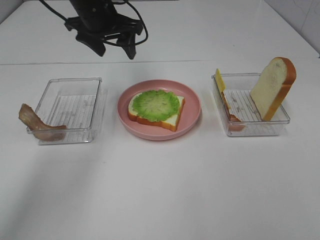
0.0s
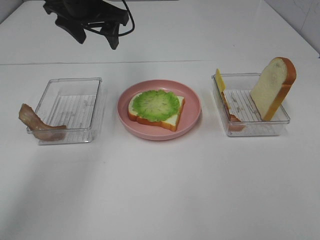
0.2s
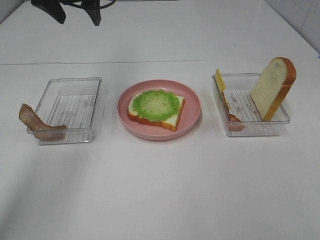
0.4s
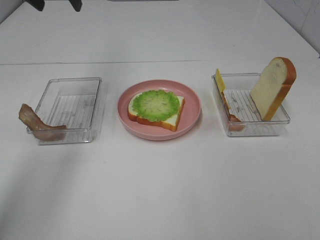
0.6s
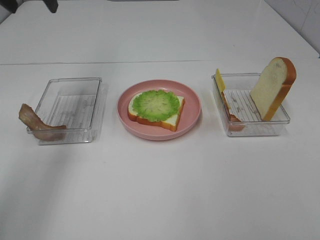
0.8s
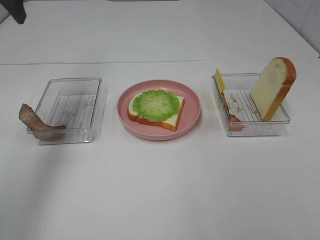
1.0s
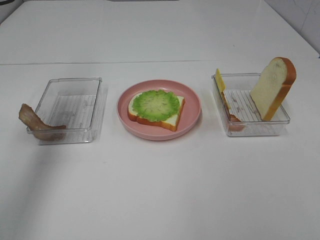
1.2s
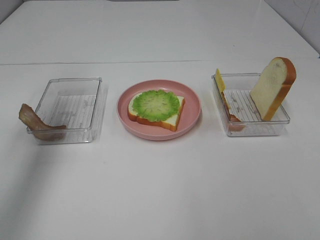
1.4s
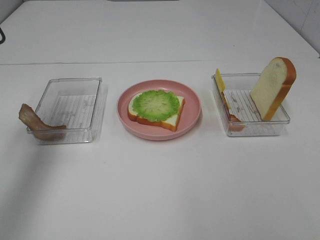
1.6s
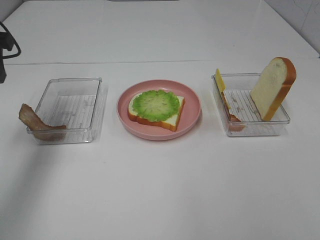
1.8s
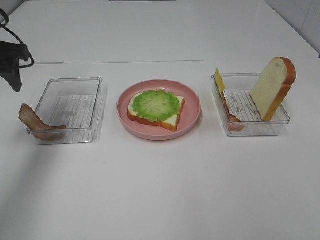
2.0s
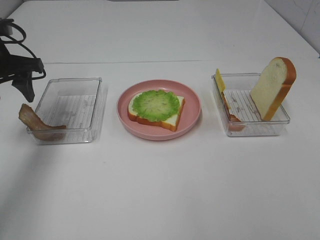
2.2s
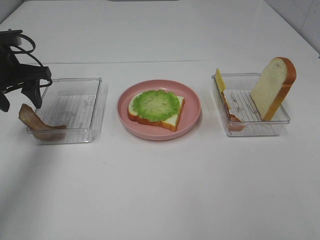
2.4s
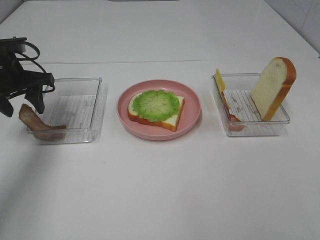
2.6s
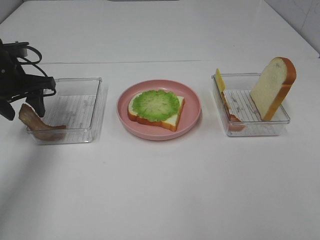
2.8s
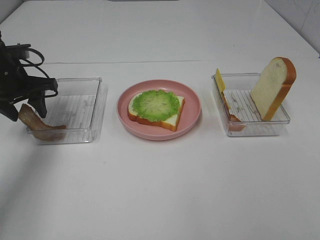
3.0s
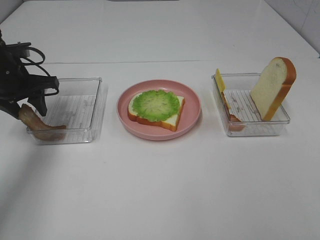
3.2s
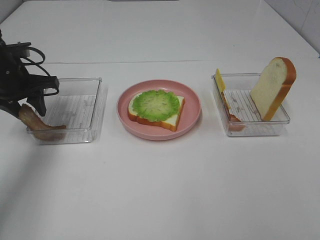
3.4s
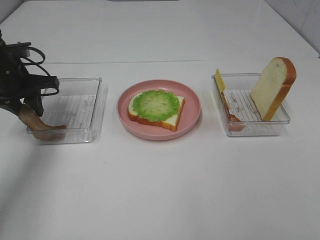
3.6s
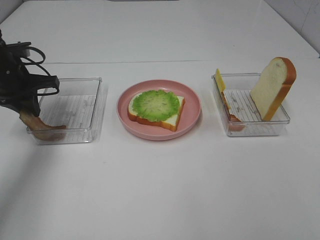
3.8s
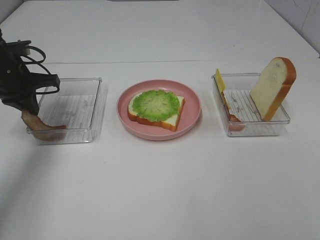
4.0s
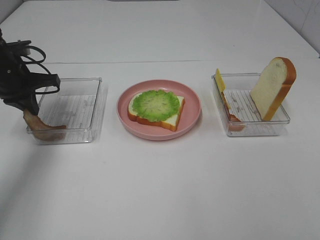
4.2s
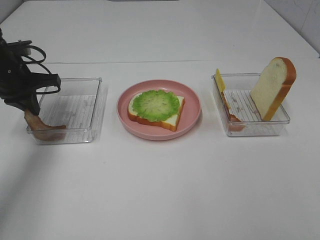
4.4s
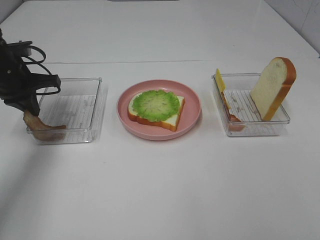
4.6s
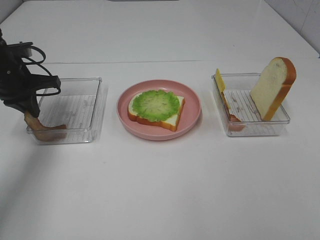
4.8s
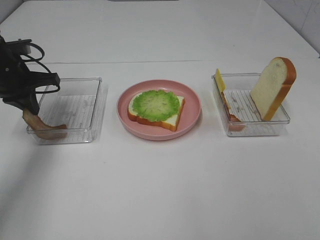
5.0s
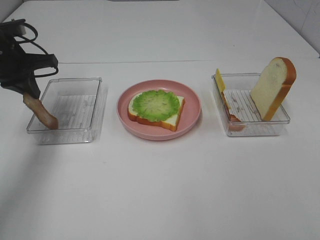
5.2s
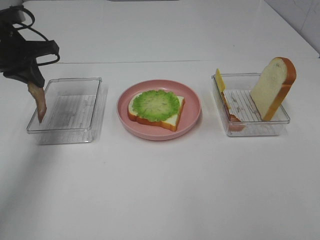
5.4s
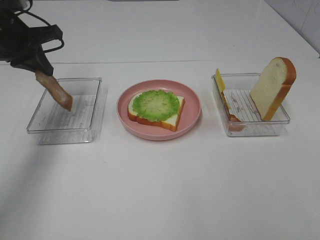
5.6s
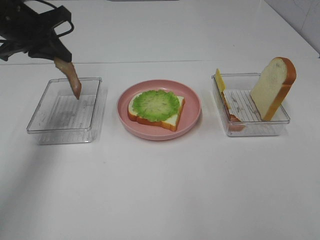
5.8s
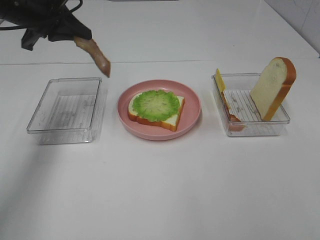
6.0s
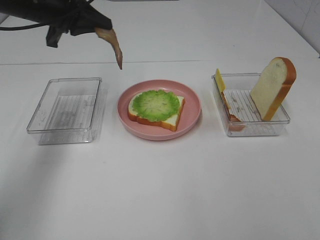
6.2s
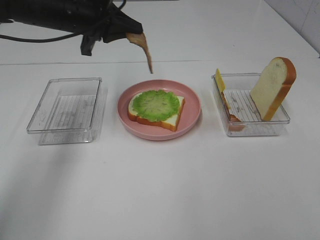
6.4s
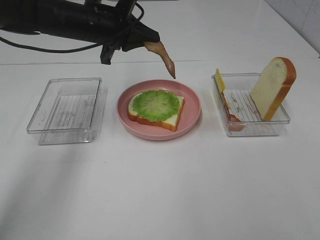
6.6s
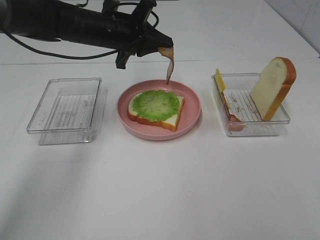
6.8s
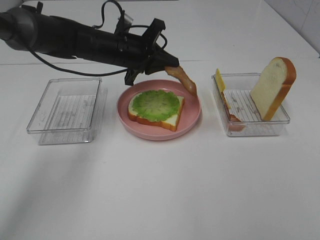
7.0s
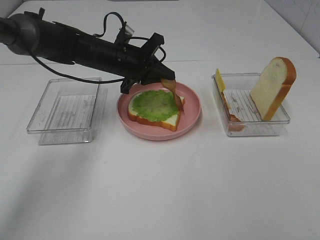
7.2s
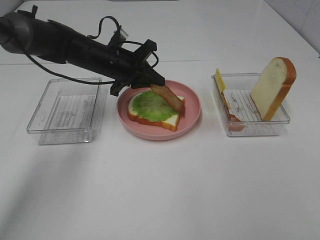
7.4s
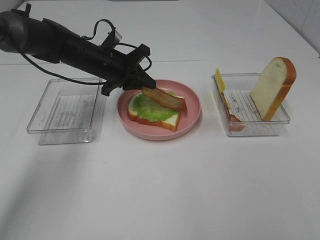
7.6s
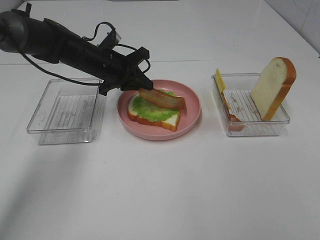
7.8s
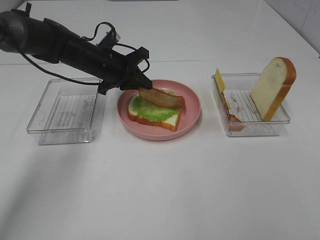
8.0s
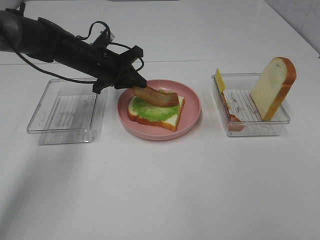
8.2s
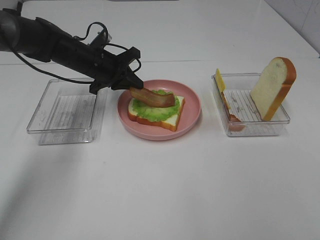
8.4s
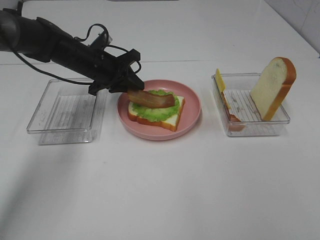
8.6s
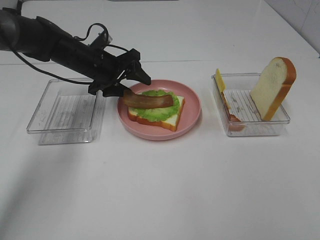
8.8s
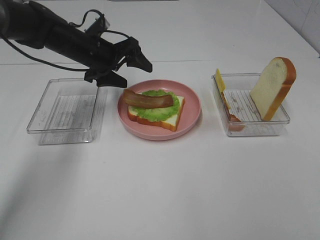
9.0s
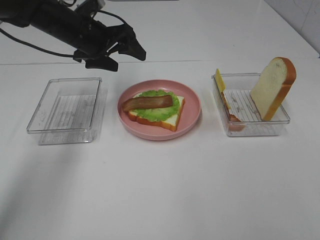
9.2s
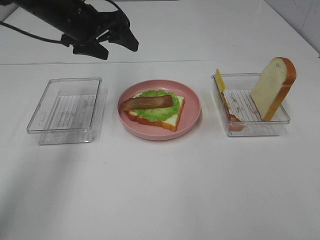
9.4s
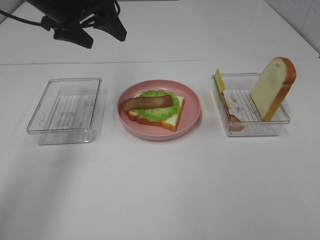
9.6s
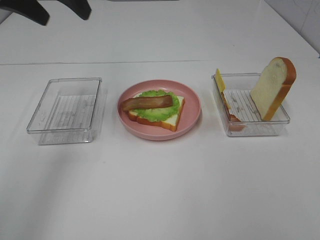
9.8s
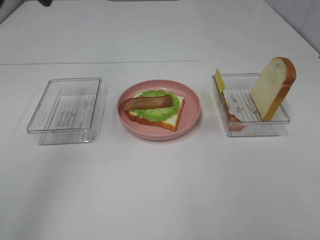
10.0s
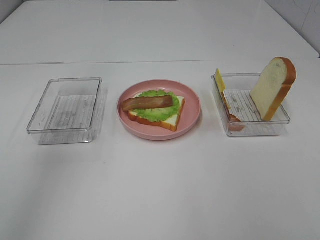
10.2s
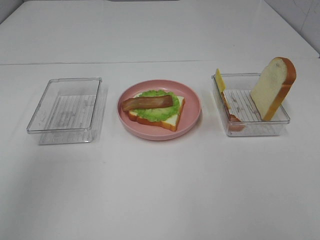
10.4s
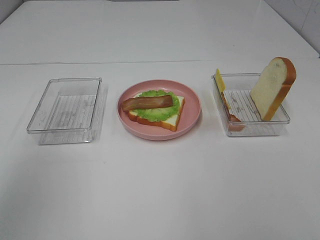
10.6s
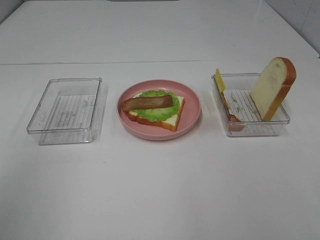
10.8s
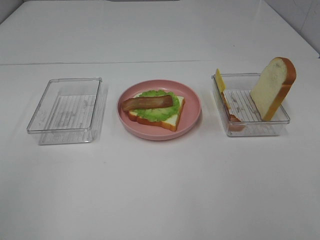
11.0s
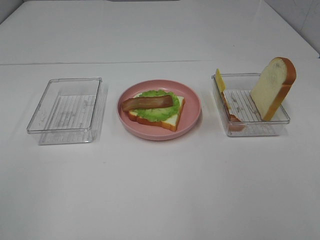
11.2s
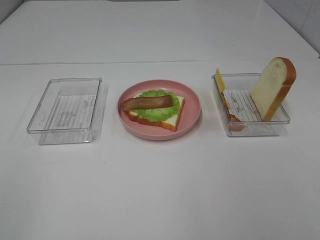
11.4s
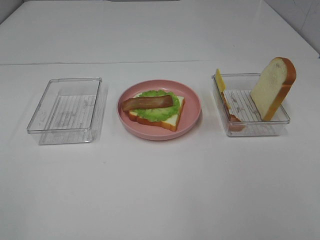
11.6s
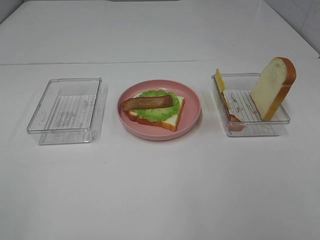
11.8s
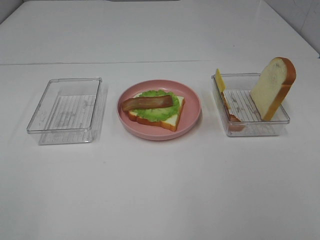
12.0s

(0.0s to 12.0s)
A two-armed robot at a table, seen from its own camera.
Task of the whole recording: Make sandwiches.
Step, 0.0s - 4.2s: Left hand:grab the bacon.
Step, 4.4s - 9.2s: Left hand:place bacon on lettuce slice.
0.0s - 1.6s: The left gripper shifts approximately 25 cm to the left and backward.
1.6s - 3.0s: The left gripper travels downward and forward by approximately 15 cm.
3.0s - 4.4s: The left gripper closes up.
4.4s - 6.0s: The left gripper shifts roughly 10 cm upward and to the right.
6.0s - 7.6s: The left gripper shifts approximately 15 cm downward and to the right.
7.6s - 9.0s: The left gripper opens.
9.0s - 10.4s: The left gripper is displaced upward, backward and to the left by roughly 40 cm.
10.4s - 12.0s: The left gripper is displaced backward and downward by roughly 25 cm.

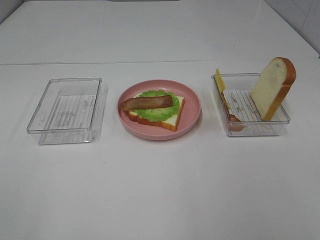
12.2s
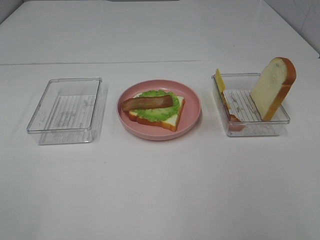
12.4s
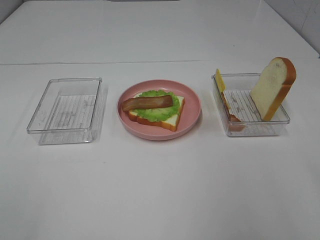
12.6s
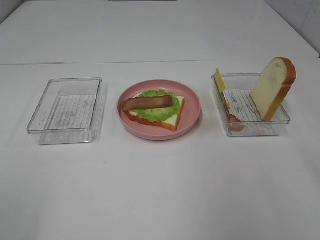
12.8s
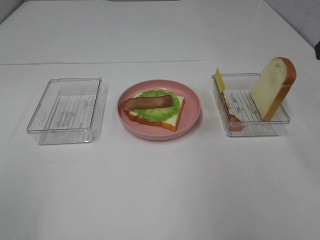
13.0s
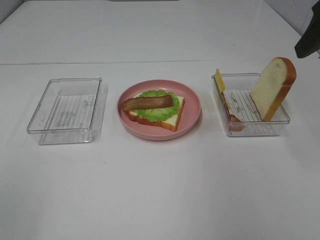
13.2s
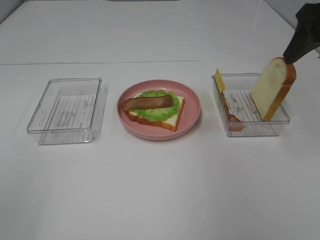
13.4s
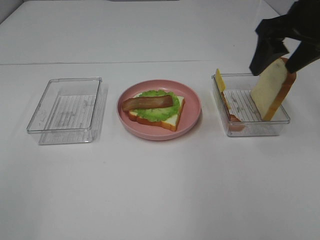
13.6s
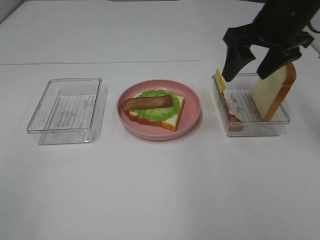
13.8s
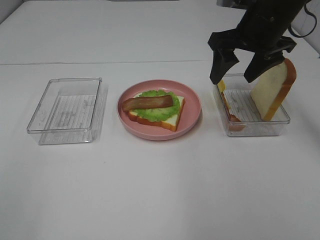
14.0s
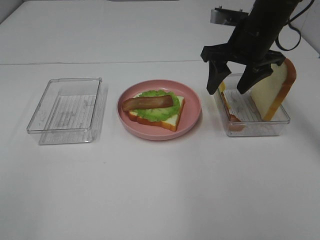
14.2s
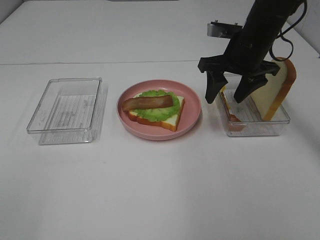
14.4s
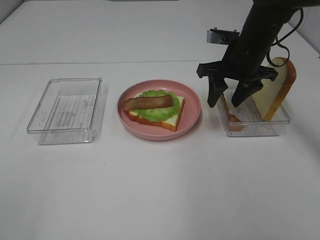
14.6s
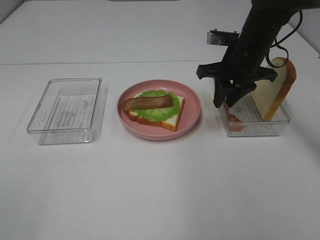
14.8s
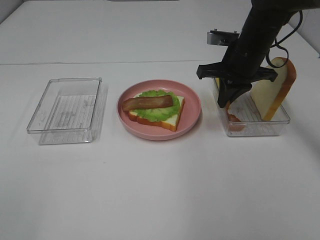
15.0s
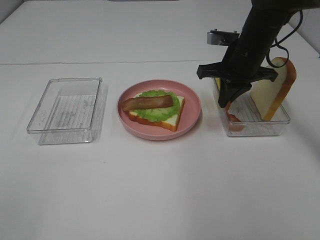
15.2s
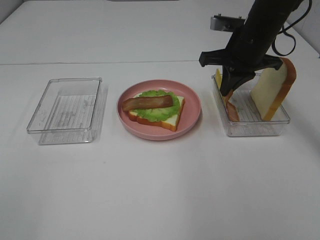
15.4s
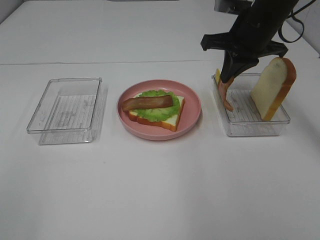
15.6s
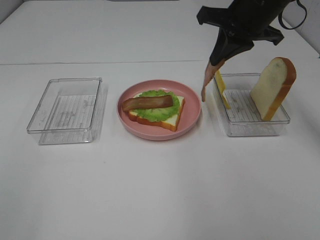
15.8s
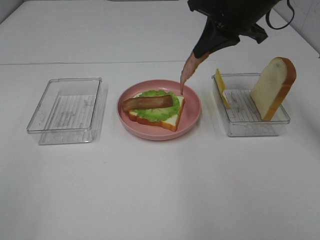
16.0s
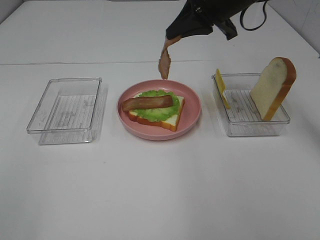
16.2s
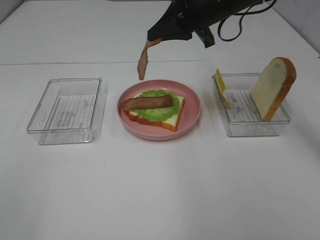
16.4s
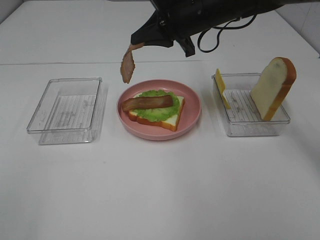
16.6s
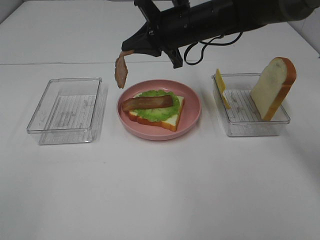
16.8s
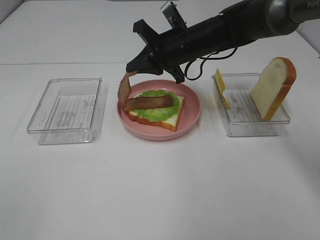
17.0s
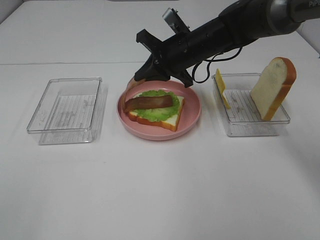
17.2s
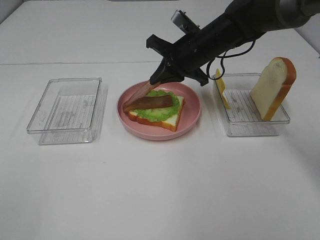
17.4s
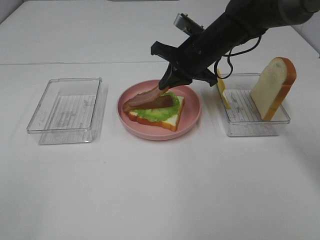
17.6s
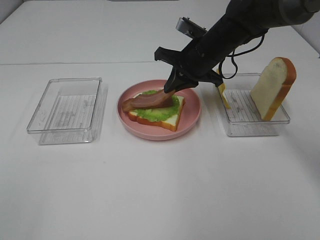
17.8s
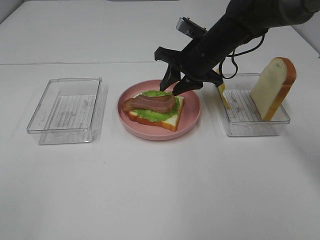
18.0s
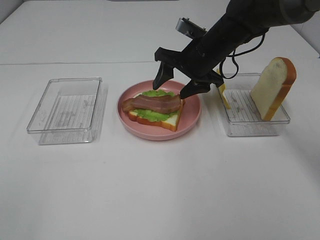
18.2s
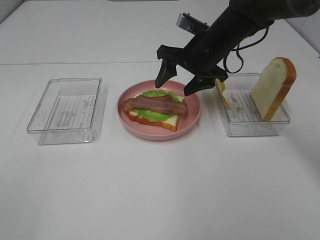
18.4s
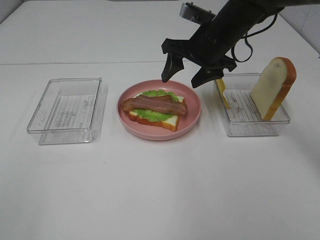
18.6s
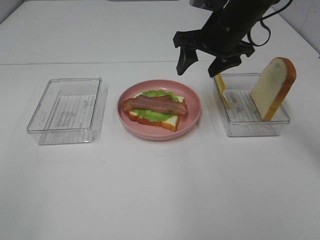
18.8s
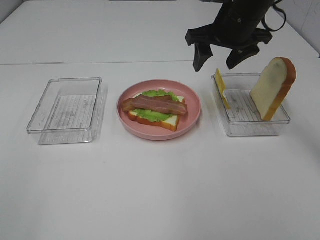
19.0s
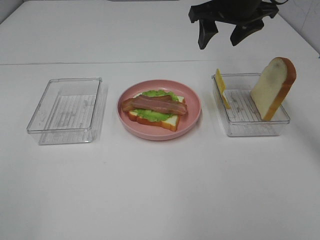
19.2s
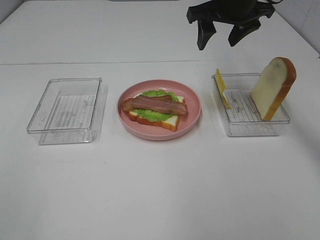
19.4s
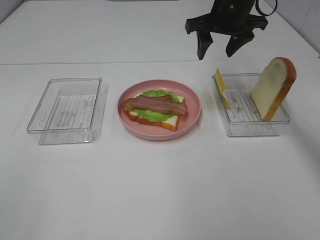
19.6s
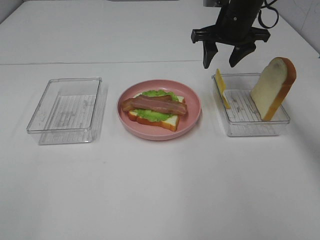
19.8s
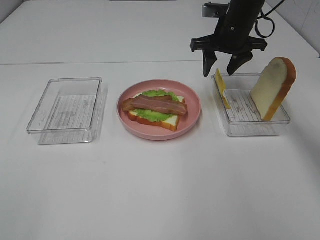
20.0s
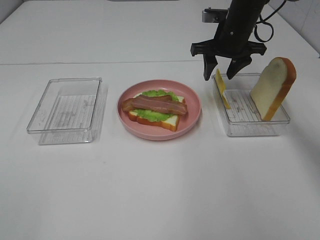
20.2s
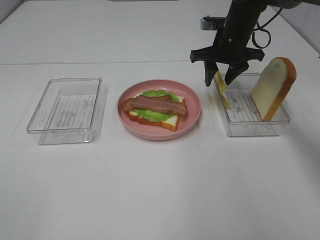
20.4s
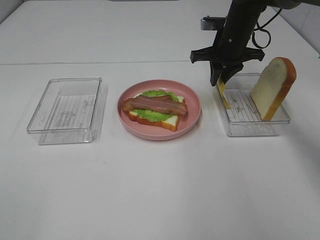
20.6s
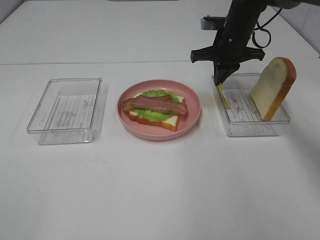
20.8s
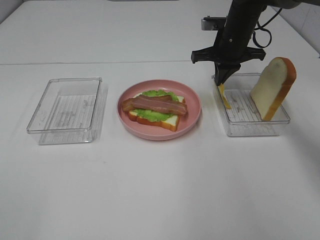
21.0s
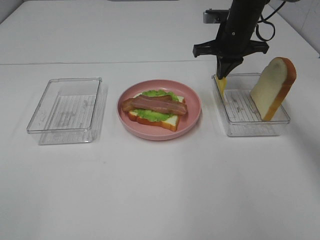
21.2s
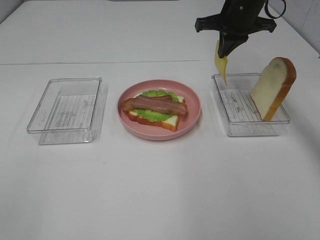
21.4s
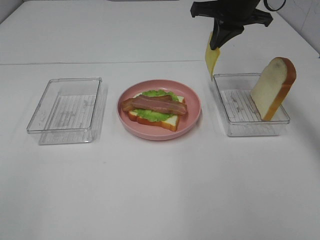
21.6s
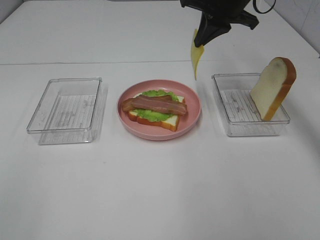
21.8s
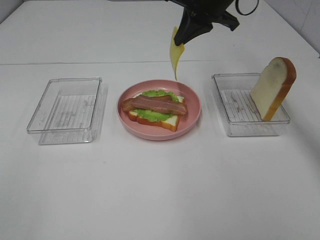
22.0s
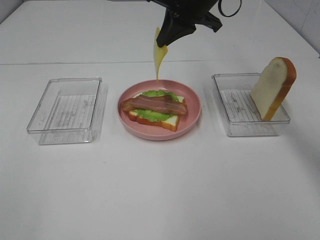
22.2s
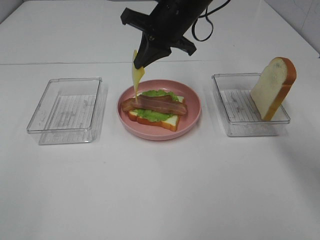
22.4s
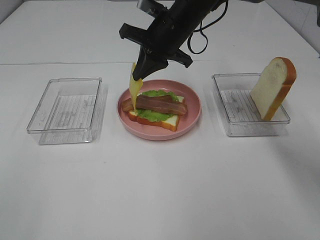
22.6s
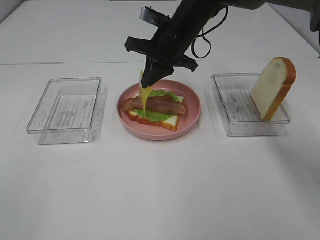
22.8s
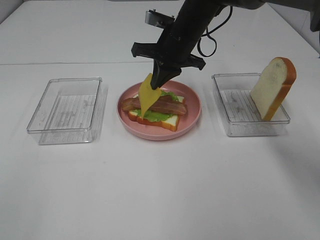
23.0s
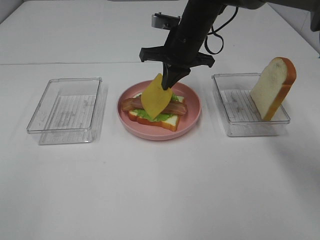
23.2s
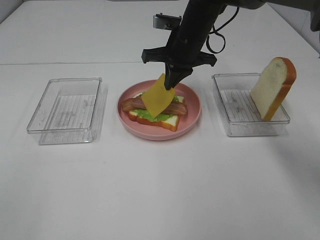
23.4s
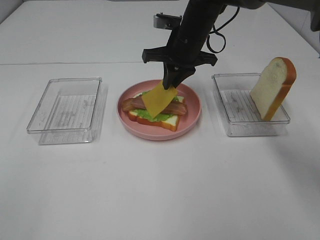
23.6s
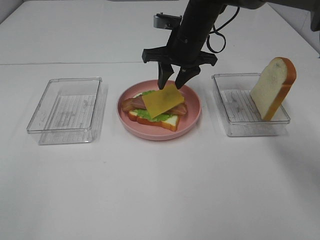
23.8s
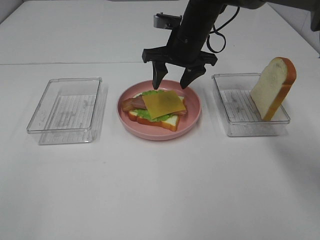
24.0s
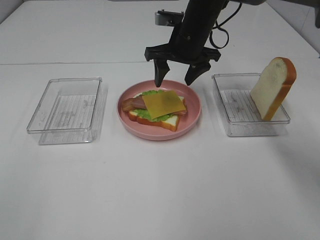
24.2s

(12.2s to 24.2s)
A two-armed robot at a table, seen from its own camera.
Task of the whole recording: Make sandwiches.
Step, 12.2s - 15.4s: Right hand:grab the bacon.
Step, 15.6s - 18.4s: Right hand:place bacon on bacon.
Step, 18.6s - 20.8s: Right hand:grab the cheese slice.
Step, 21.0s - 24.2s: Right hand:place the cheese slice on top of the bacon.
12.2s - 13.8s: The right gripper goes about 35 cm forward.
13.8s - 15.2s: The right gripper shifts some 10 cm downward, and closes its fingers.
15.2s - 16.6s: The right gripper goes some 10 cm to the left and upward.
16.6s - 18.2s: The right gripper travels downward by approximately 5 cm, and opens.
18.2s - 19.8s: The right gripper shifts approximately 5 cm forward and to the right.
19.8s - 21.2s: The right gripper closes.
21.2s - 22.6s: The right gripper heads to the left, covering some 10 cm.
22.6s - 24.2s: The right gripper opens its fingers.
